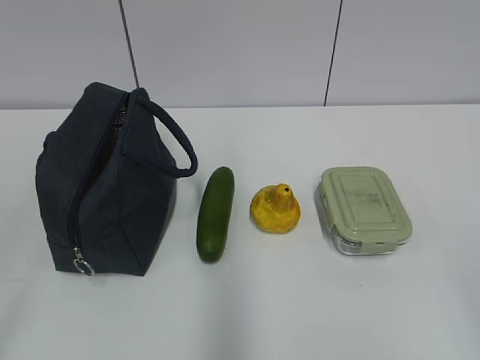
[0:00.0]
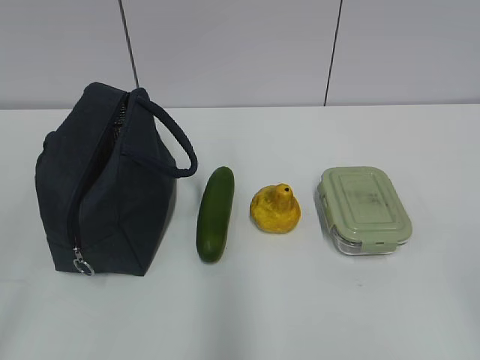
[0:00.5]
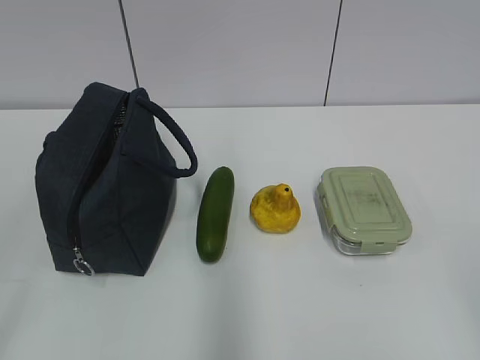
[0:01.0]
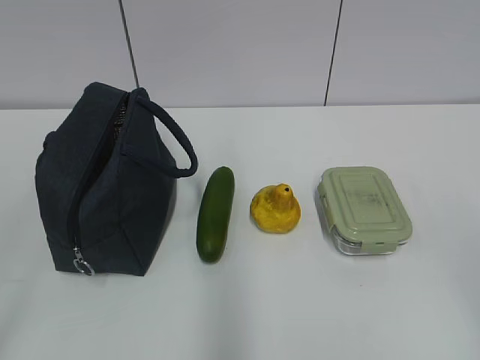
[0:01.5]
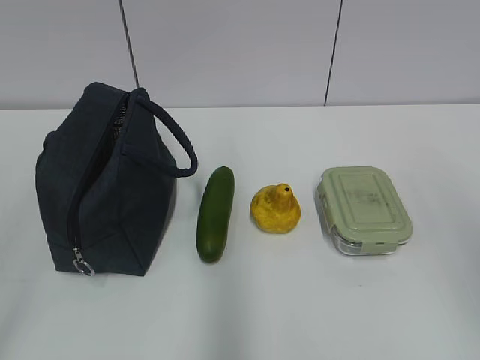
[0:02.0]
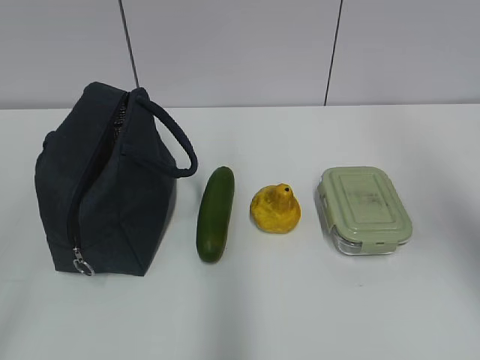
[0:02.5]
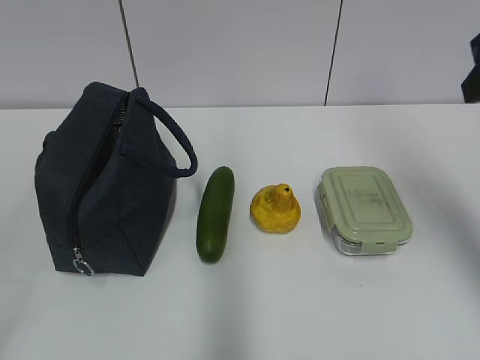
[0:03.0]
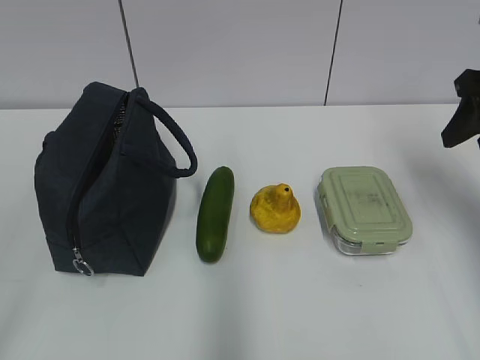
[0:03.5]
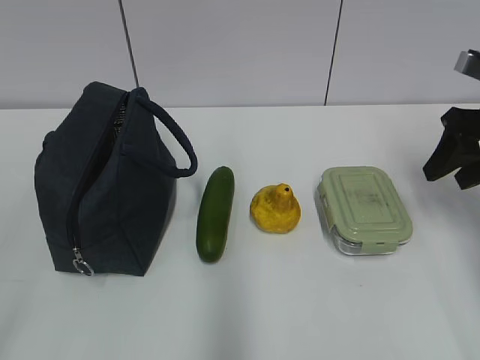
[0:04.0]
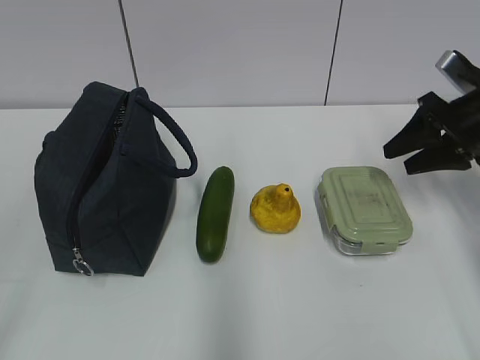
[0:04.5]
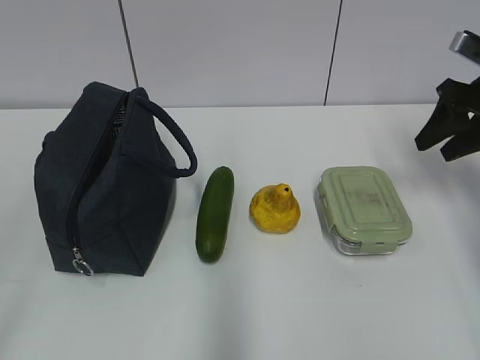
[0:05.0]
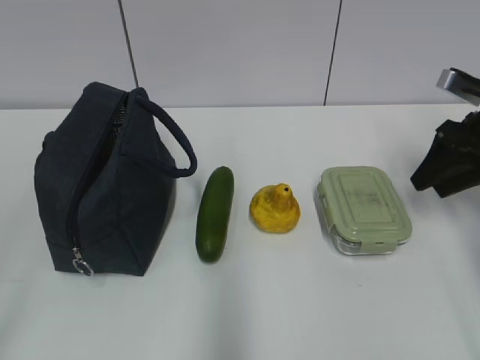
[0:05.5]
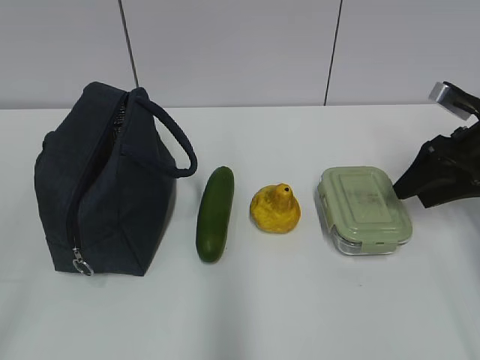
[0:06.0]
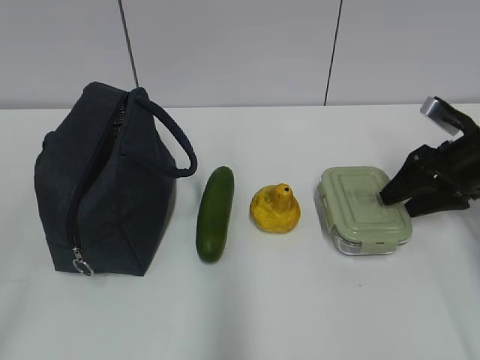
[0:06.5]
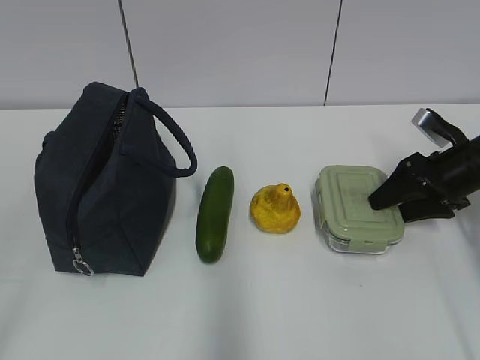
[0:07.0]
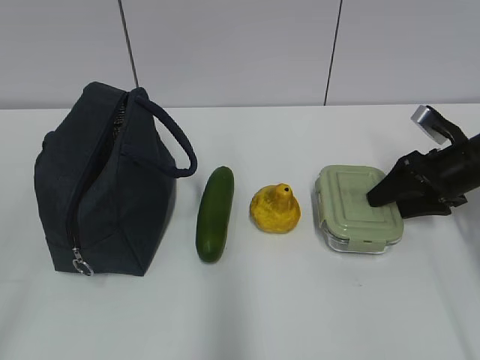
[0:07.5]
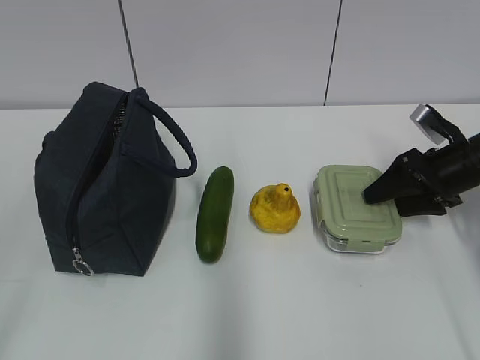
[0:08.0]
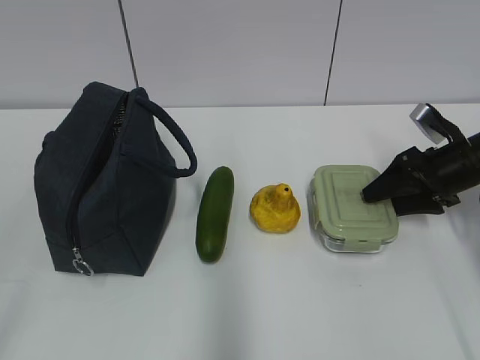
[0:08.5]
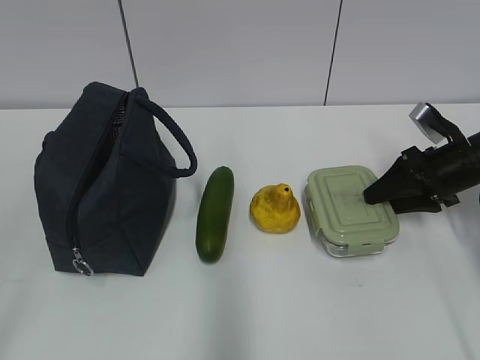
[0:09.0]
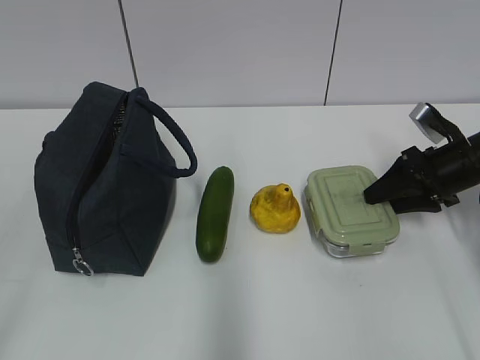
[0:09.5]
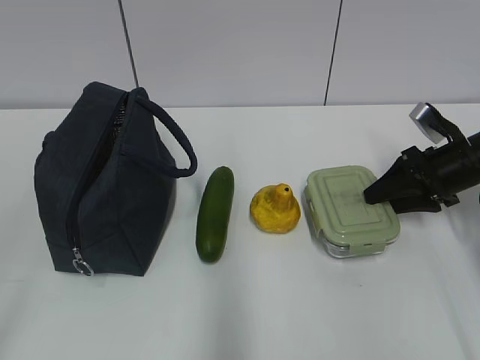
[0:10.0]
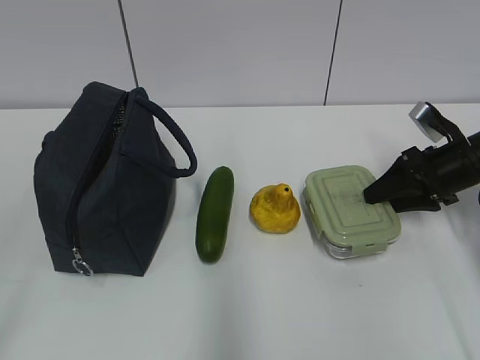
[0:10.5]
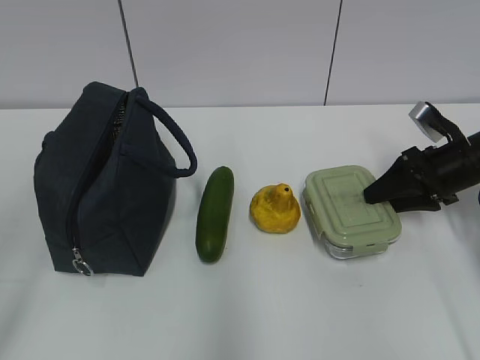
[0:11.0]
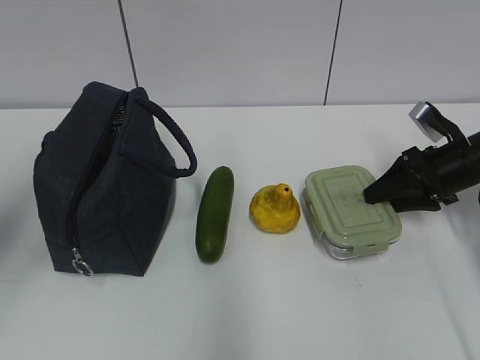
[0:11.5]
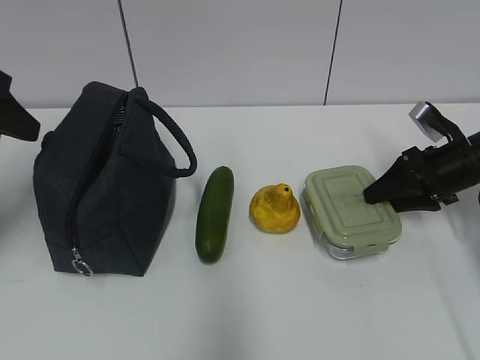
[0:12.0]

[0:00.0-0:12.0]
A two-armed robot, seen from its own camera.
0:02.0 to 0:04.0: The right gripper travels forward and downward by some 30 cm.
0:04.0 to 0:06.0: The right gripper travels downward by some 5 cm.
0:06.0 to 0:08.0: The right gripper travels downward by approximately 5 cm.
0:08.0 to 0:10.0: Neither gripper changes place.
0:10.0 to 0:12.0: The left gripper is displaced forward by about 30 cm.

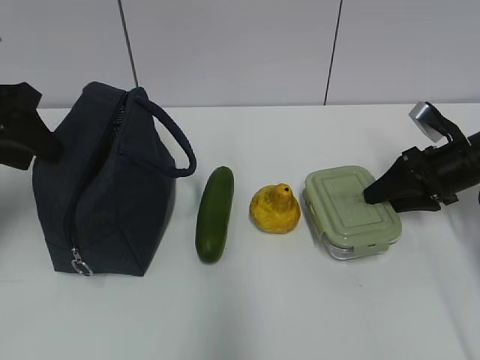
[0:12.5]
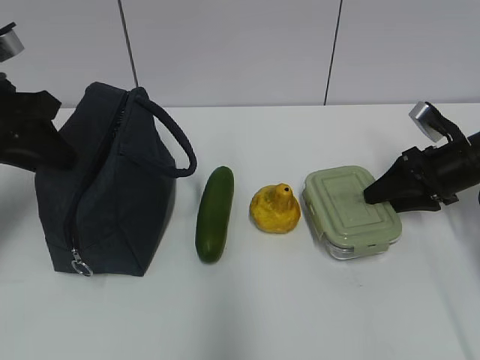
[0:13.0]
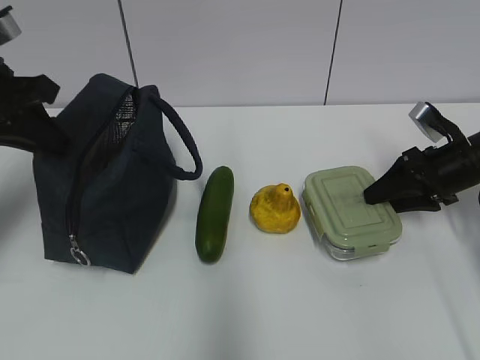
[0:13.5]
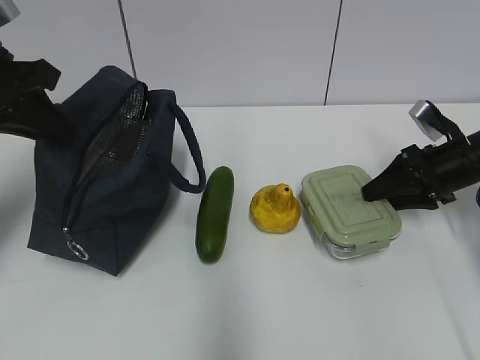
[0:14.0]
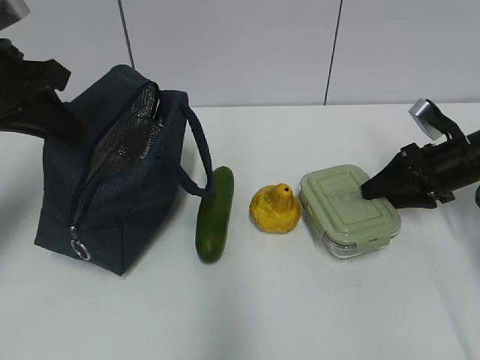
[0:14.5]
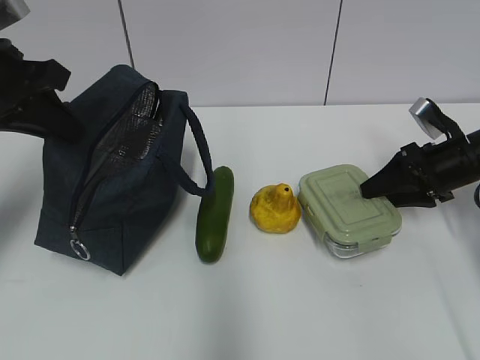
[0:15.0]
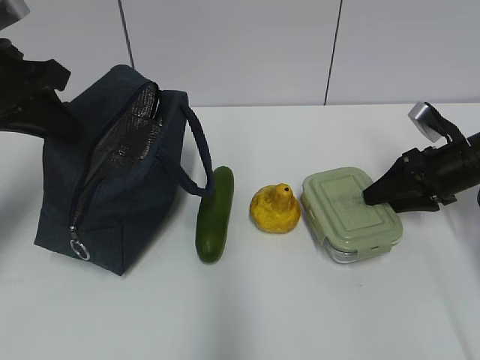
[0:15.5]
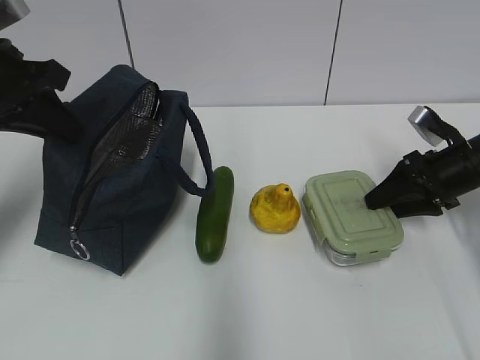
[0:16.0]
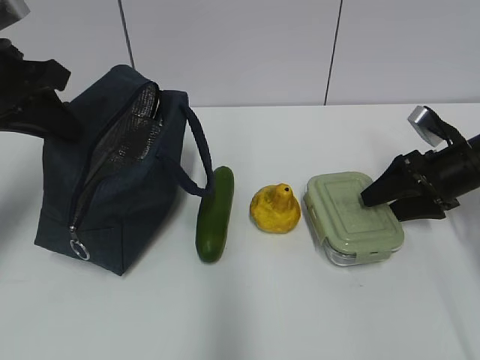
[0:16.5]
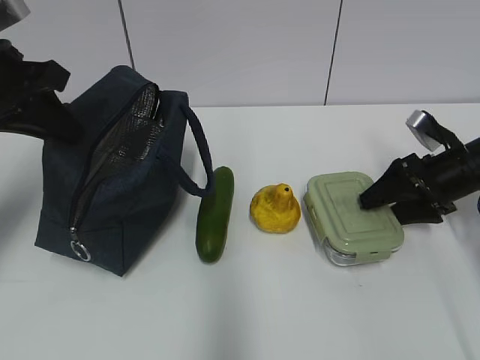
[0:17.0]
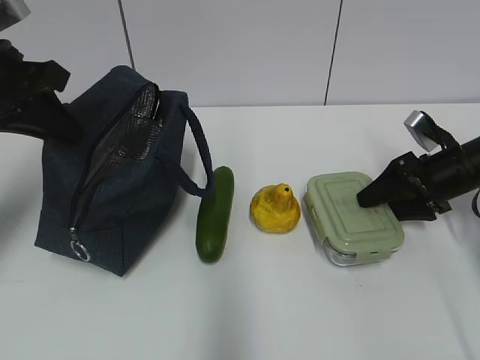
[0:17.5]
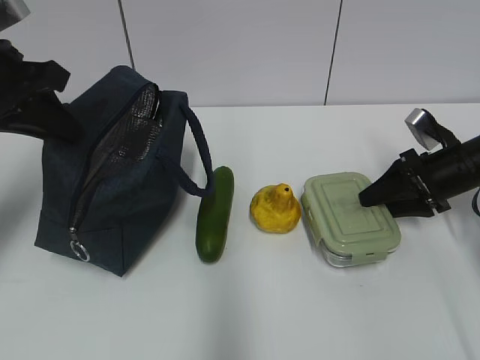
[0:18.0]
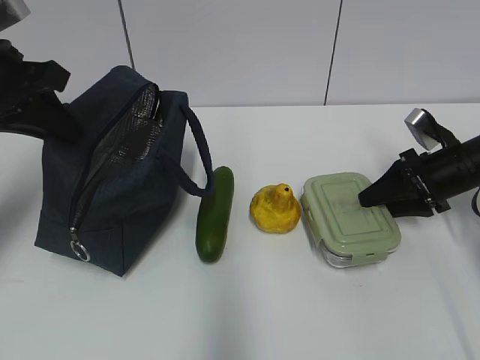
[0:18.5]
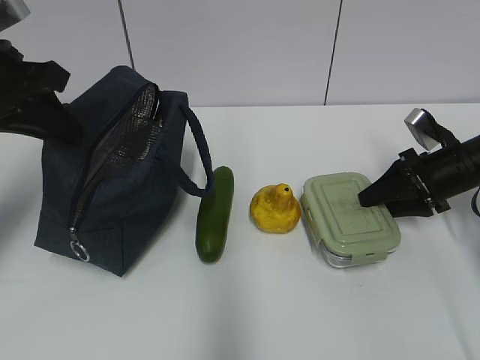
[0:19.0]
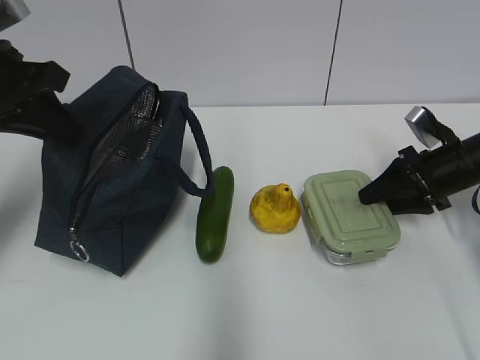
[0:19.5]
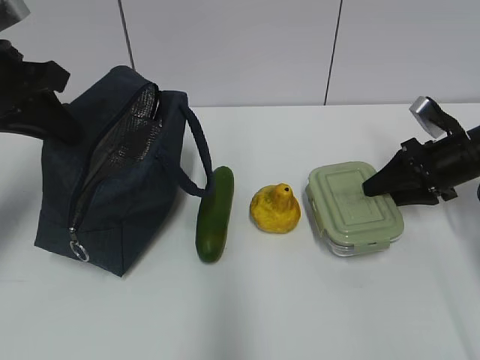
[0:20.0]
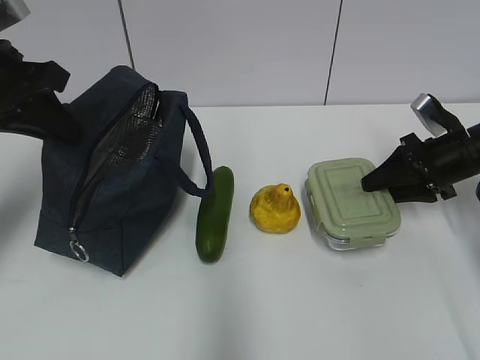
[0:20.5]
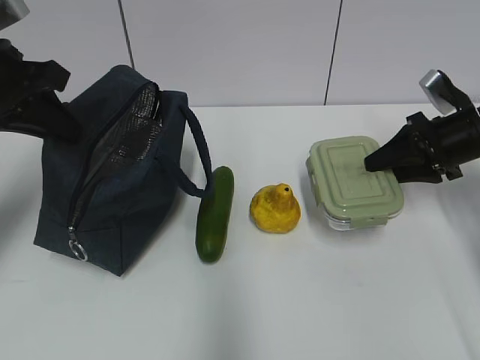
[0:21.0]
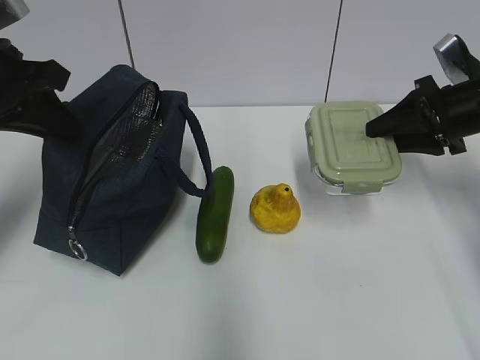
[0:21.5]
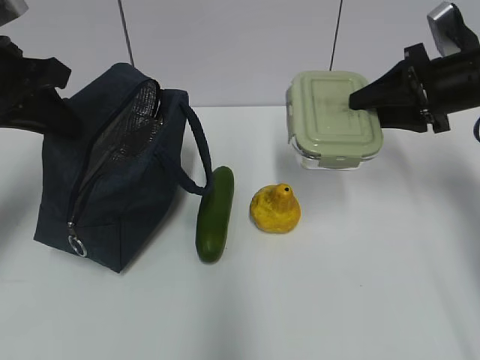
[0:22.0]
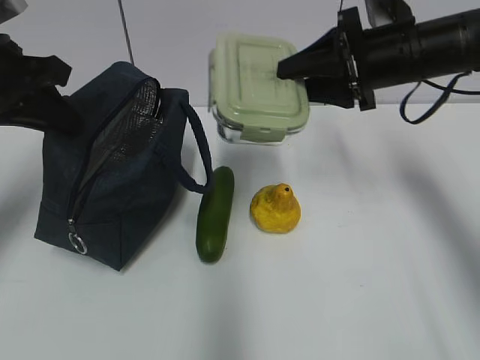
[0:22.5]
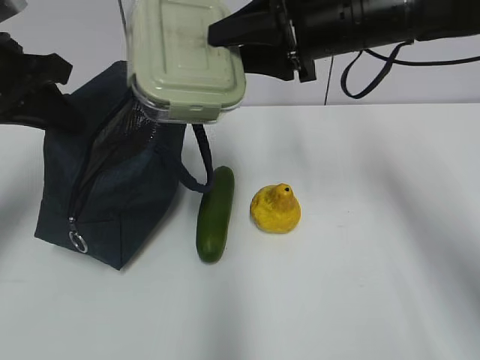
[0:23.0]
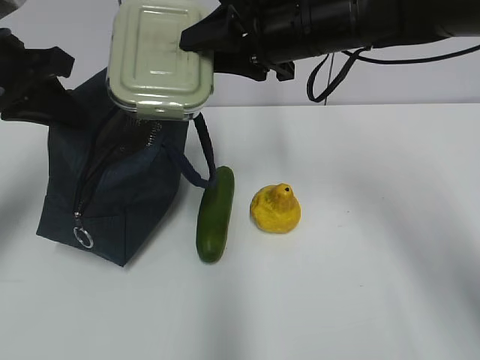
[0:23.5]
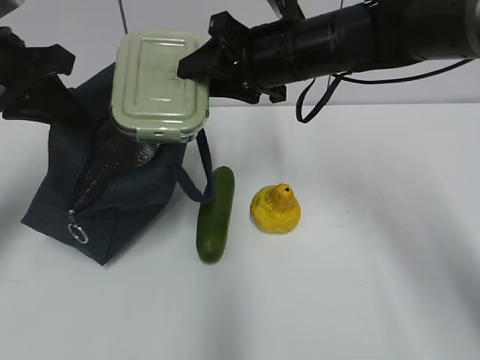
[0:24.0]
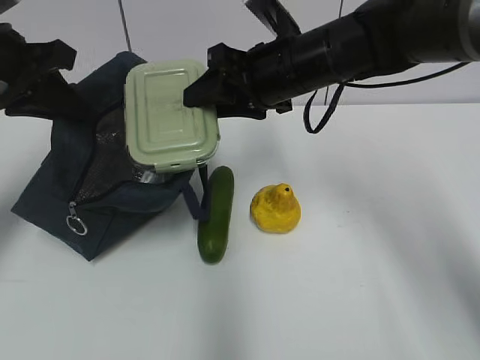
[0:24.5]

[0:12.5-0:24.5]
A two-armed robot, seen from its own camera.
Step, 0:12.5 to 0:19.0: Grab the lunch box with your right hand.
0:12.5 to 0:14.5: The left gripper closes up.
0:14.5 to 0:16.5: Neither gripper changes place.
0:16.5 to 0:20.5: The grippers move only a little.
0:20.5 to 0:22.5: The right gripper travels upward and to the left by some 15 cm.
0:22.5 to 0:24.5: The right gripper moves to the left, about 10 cm.

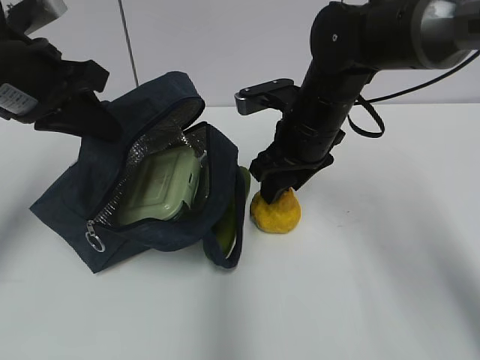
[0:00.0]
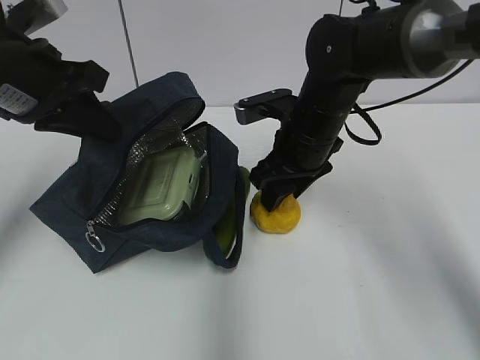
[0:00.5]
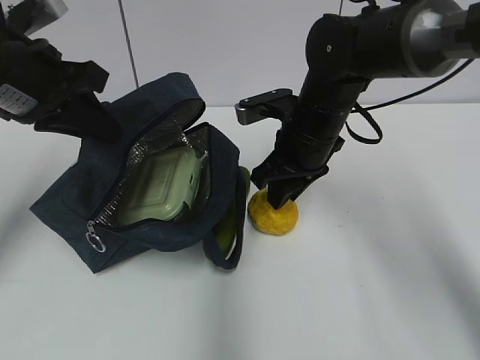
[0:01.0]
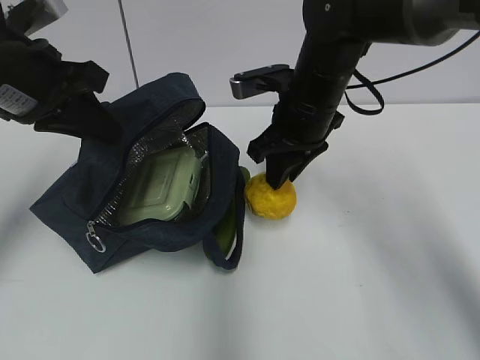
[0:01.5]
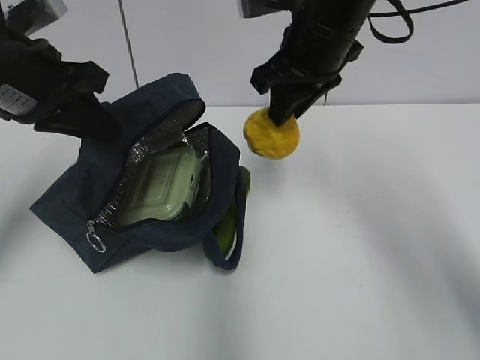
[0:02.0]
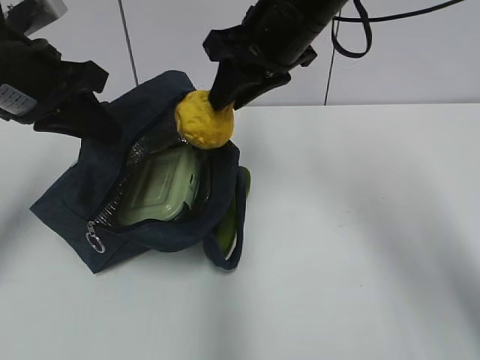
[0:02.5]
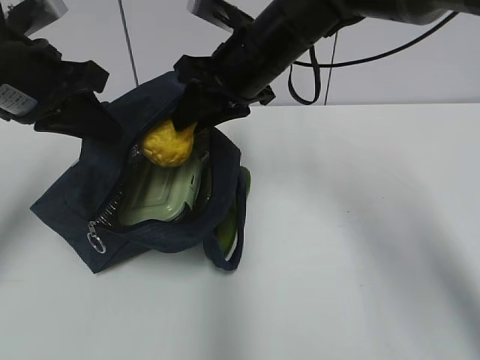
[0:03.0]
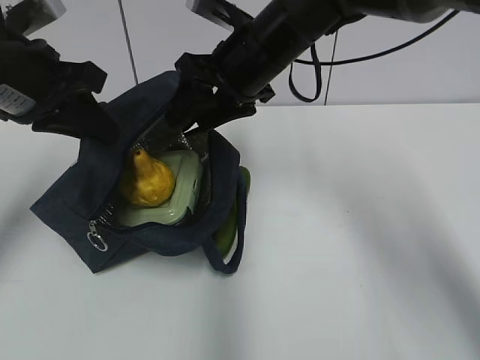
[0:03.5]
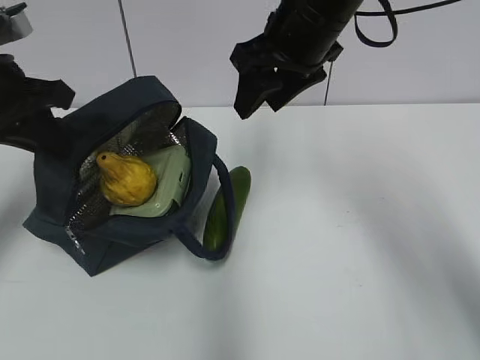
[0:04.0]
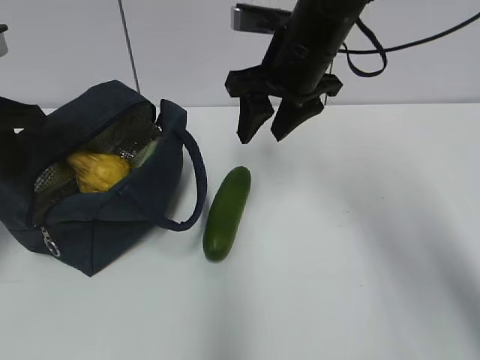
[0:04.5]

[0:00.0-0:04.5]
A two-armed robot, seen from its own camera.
Step, 0:01.5 to 0:03.5: Place it into the bag with your right hand.
0:00.0 to 0:02.0: The right gripper is displaced upward by some 10 cm, and closes its fingers.
0:02.0 to 0:04.5: The left gripper travels to the left by roughly 5 cm. The right gripper opens.
